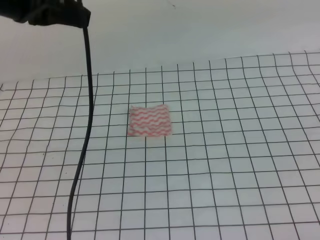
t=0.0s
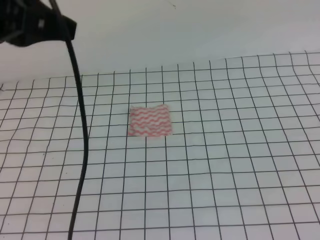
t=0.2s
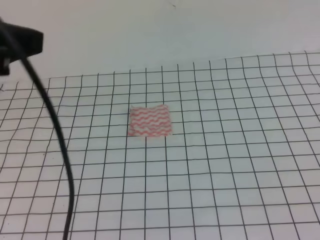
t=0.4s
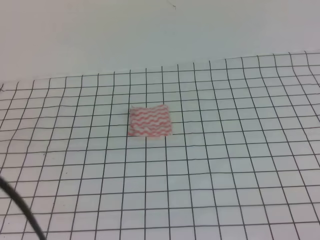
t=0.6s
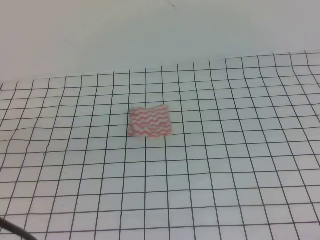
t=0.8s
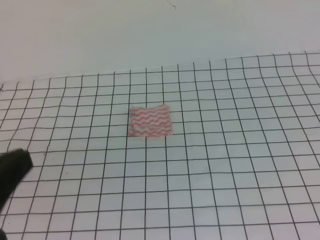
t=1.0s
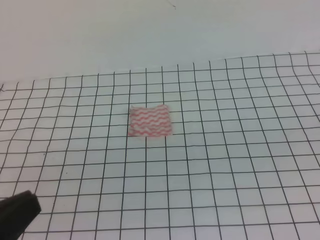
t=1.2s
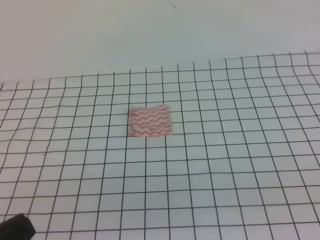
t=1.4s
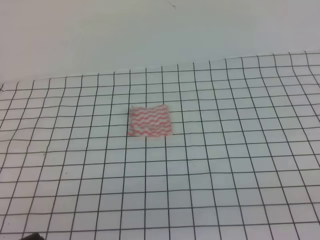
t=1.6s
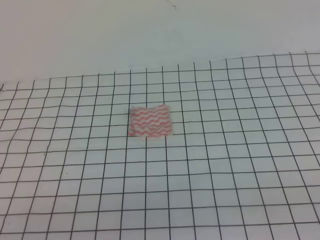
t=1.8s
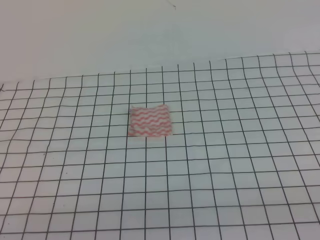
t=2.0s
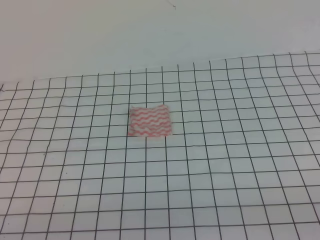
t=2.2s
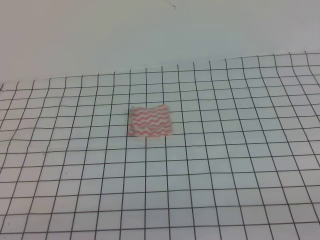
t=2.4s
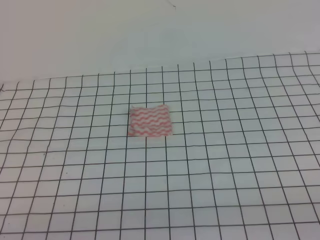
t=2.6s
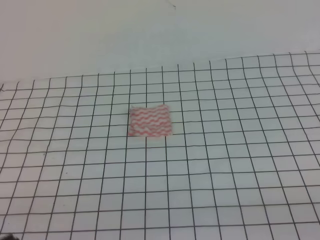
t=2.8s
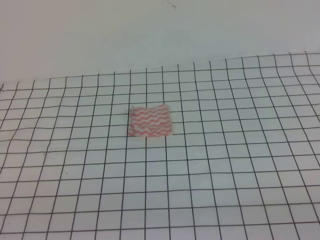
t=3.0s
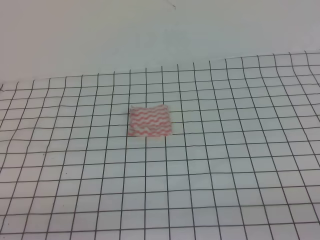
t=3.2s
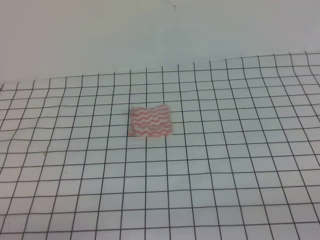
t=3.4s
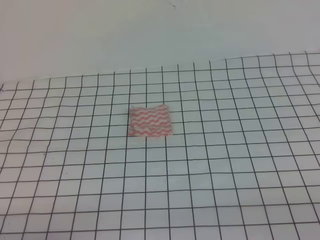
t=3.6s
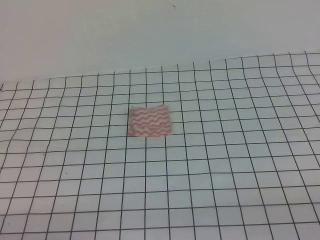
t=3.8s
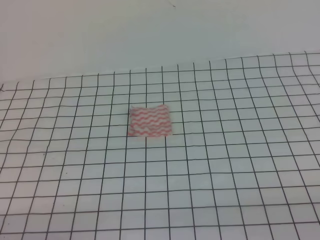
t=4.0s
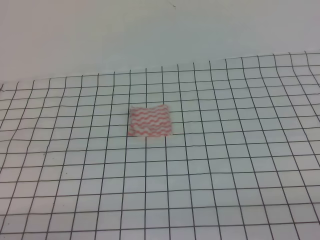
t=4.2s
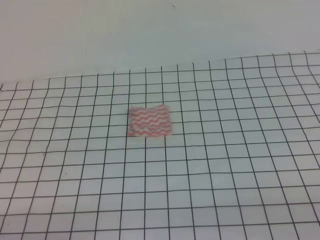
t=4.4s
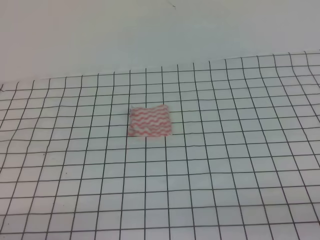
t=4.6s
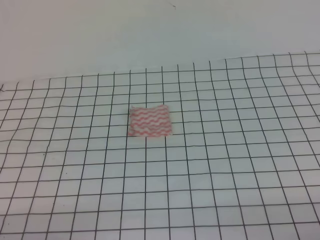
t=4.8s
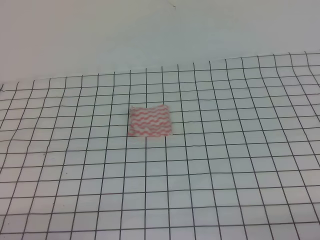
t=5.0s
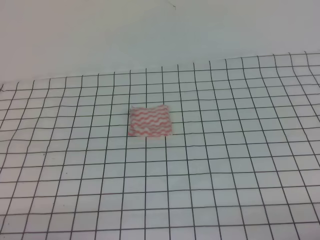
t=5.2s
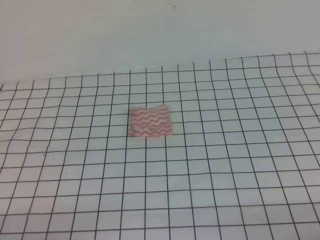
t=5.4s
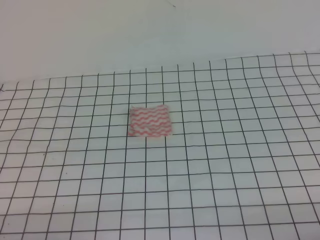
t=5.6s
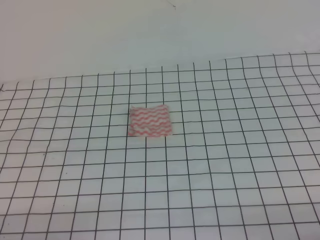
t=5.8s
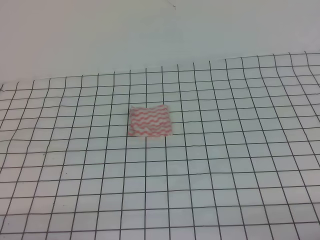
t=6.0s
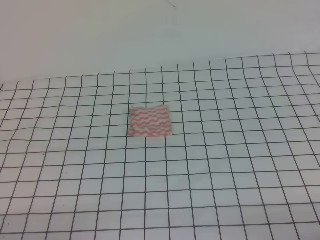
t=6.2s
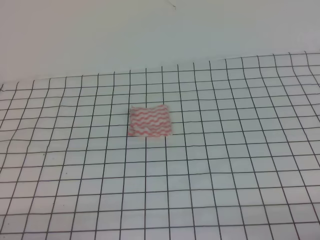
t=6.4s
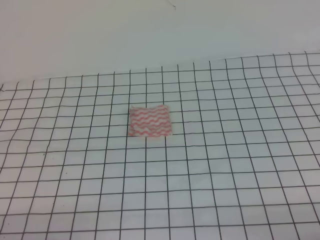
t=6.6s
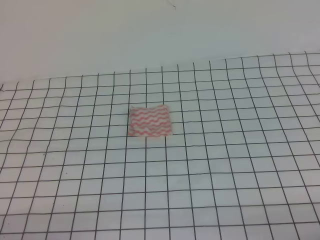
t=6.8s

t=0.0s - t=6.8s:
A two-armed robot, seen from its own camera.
Step, t=0.0s - t=6.8s: Fold the towel.
t=0.0s - t=1.4s: The left gripper is displaced backward and downward by some 30 cm.
t=5.4s - t=6.8s: Both grippers stay put.
